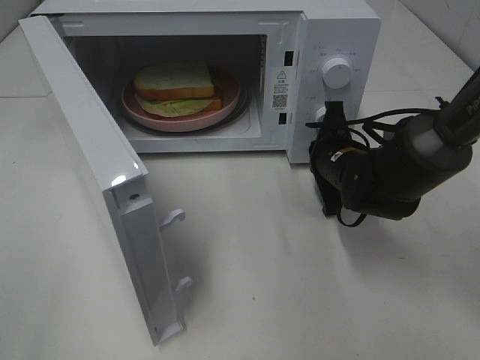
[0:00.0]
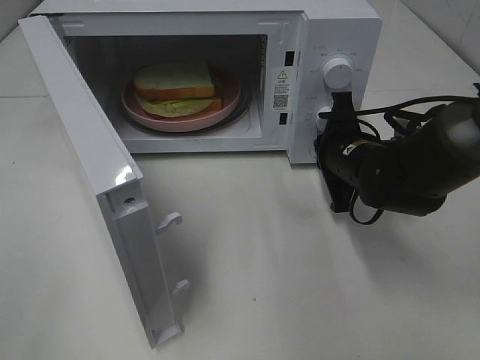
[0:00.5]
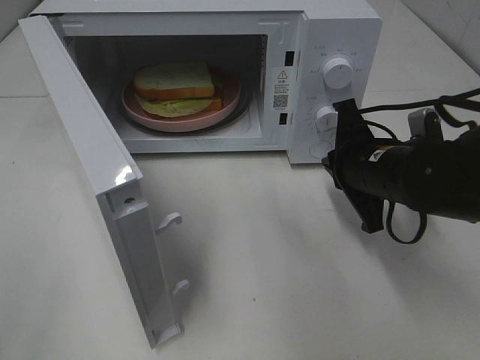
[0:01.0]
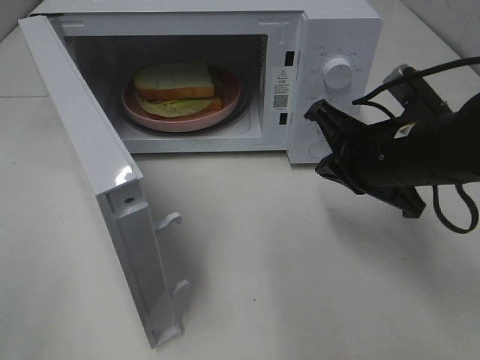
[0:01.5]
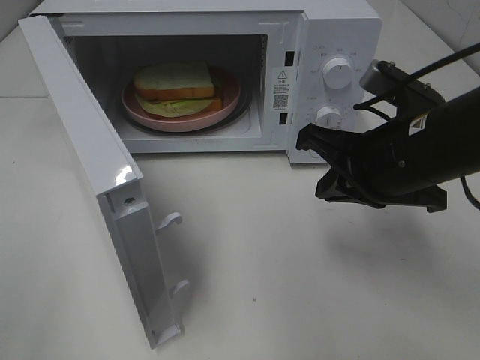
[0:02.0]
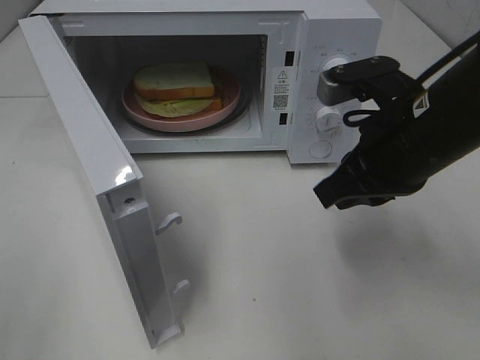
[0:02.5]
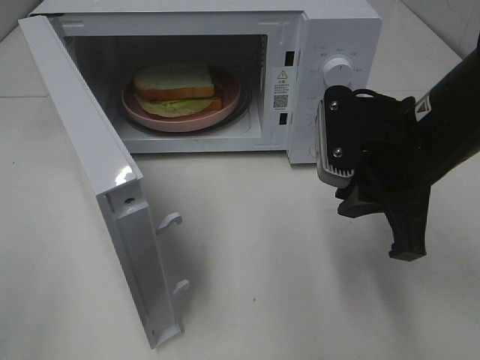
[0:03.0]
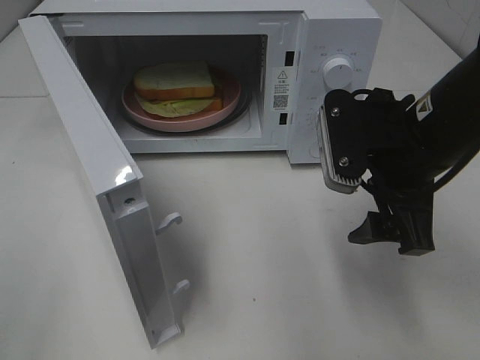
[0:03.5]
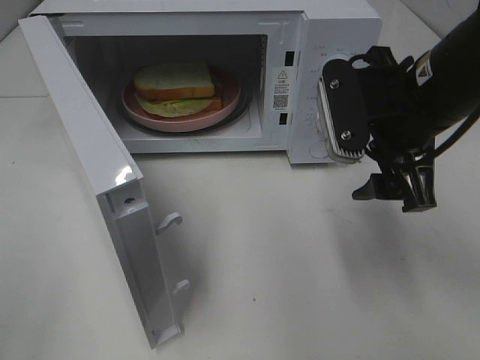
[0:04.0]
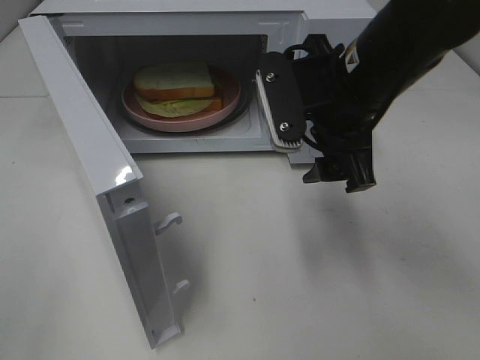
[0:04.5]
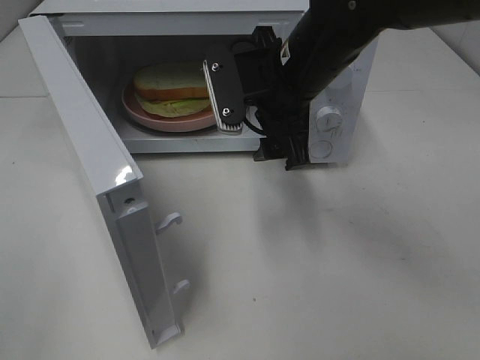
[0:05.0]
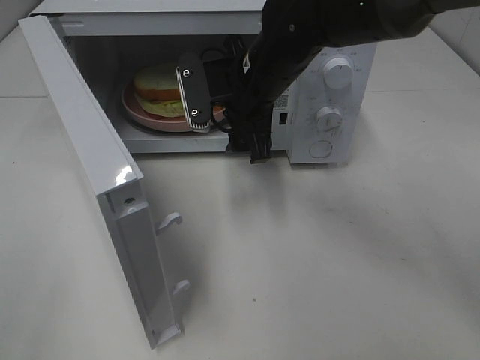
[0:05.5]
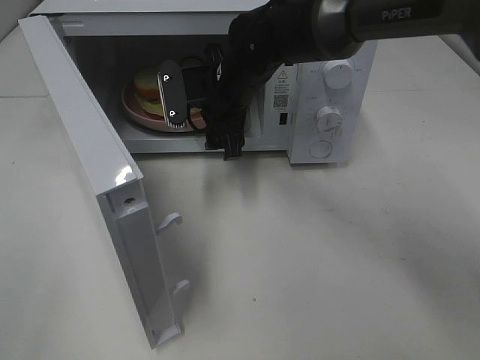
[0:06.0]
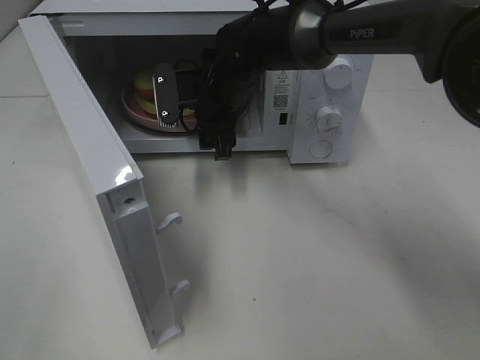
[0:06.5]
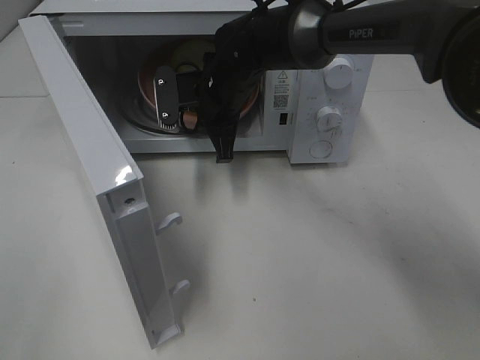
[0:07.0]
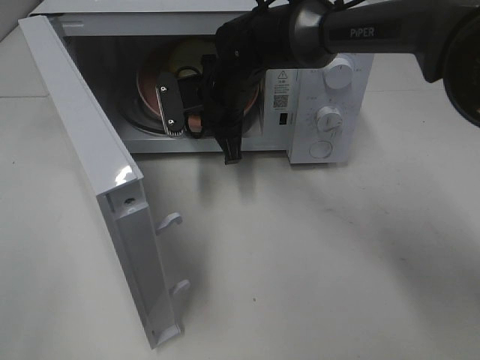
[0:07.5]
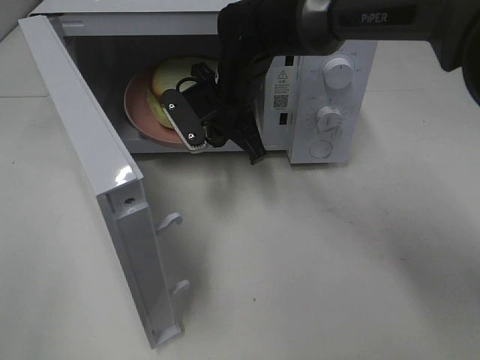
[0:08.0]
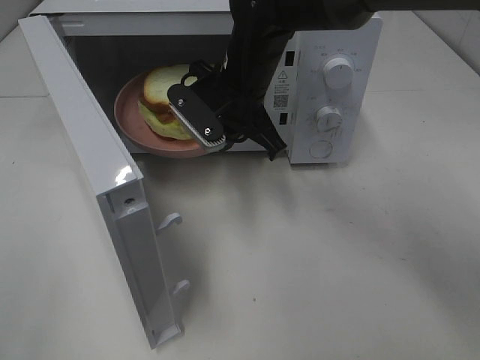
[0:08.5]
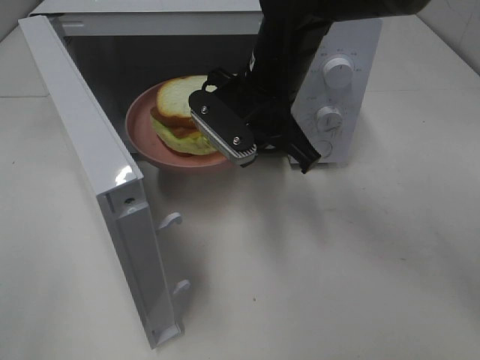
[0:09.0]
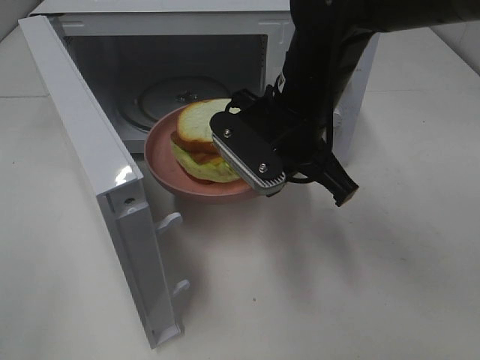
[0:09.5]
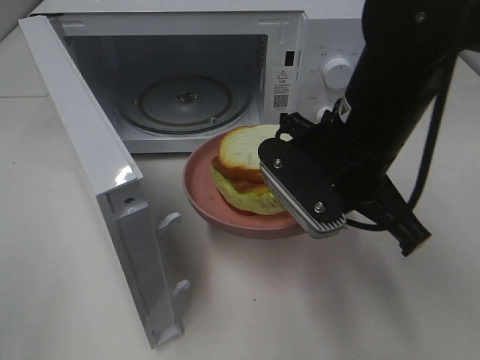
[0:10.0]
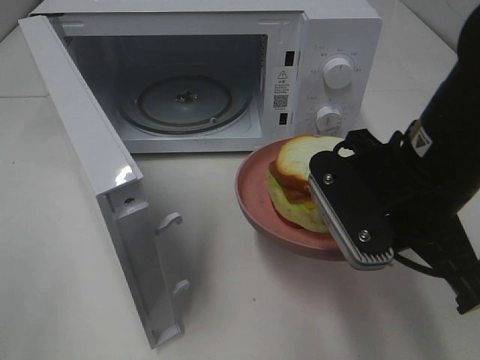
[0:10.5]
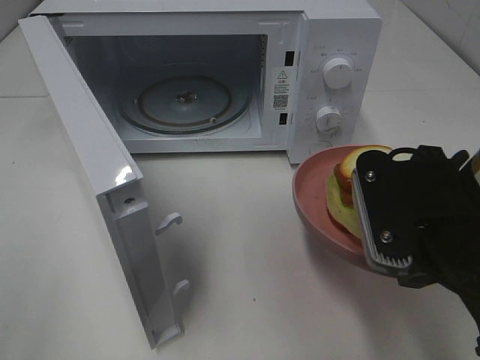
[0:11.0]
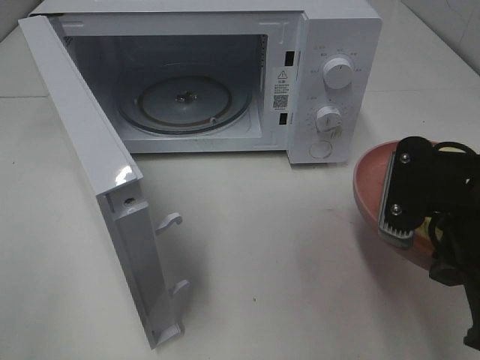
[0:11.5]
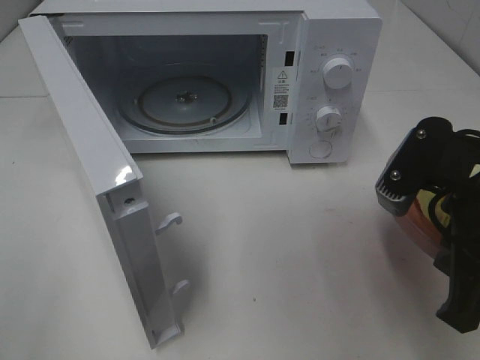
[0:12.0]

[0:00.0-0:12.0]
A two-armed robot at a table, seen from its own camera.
Task of the whole recording: Heat Sandwich.
Step, 0:01.0 to 0:07.0: Right hand: grab the plate with the sandwich.
0:00.0 to 0:02.0: The right gripper heads upward and backward, covering approximately 15 cm.
0:02.0 to 0:04.0: The right gripper opens.
0:04.0 to 0:06.0: The right gripper heads to the left, forward and downward, covering approximately 25 cm.
0:06.0 to 0:08.0: The right gripper closes its fingers.
0:08.0 to 0:10.0: The right gripper is displaced backward and to the right by approximately 20 cm.
0:10.0 to 0:12.0: The right gripper travels to the right and backward by about 10 cm.

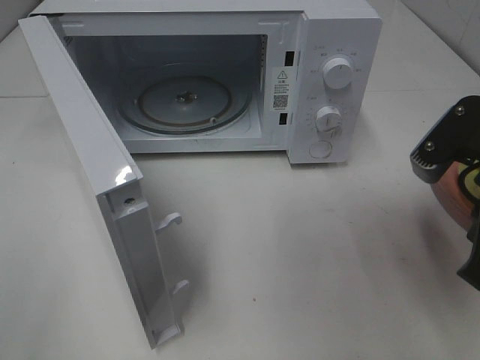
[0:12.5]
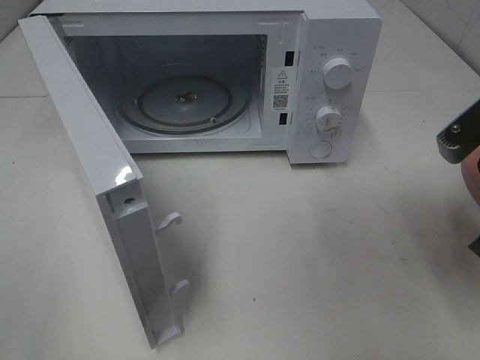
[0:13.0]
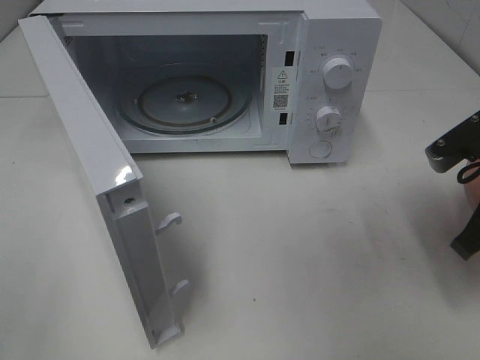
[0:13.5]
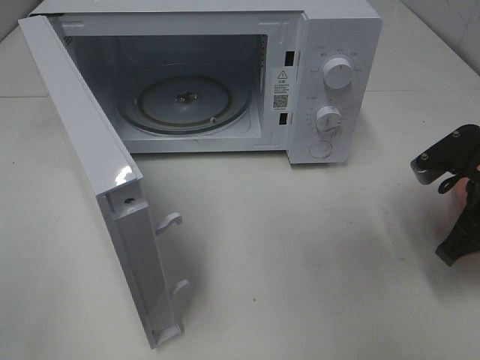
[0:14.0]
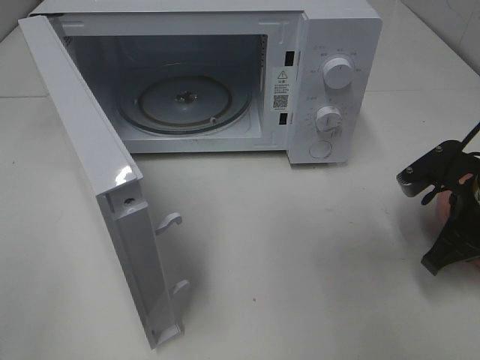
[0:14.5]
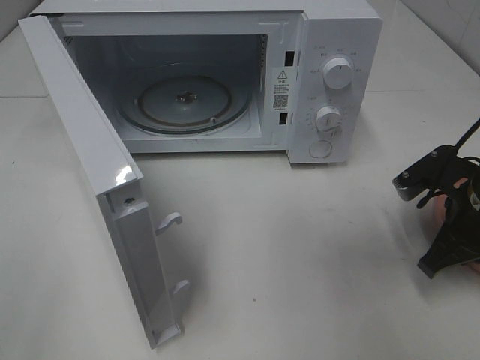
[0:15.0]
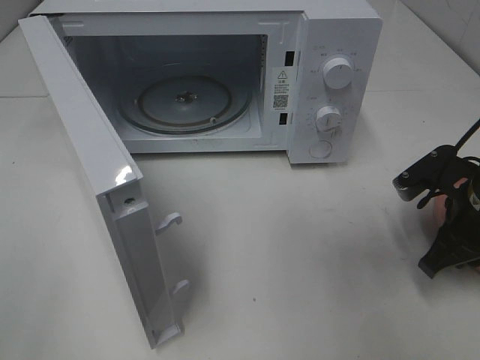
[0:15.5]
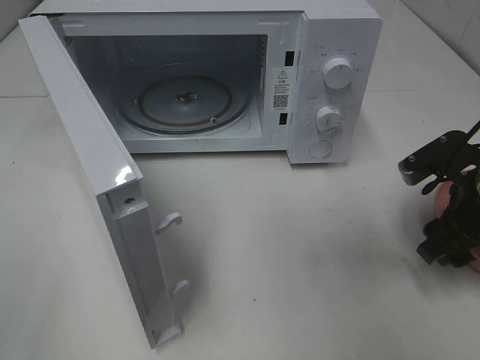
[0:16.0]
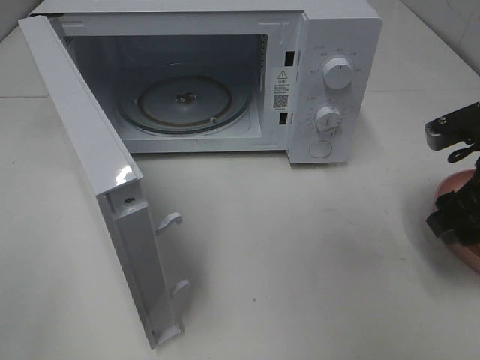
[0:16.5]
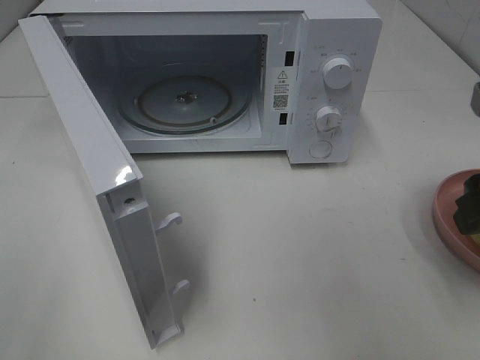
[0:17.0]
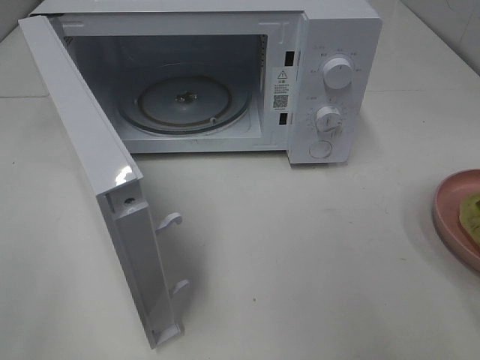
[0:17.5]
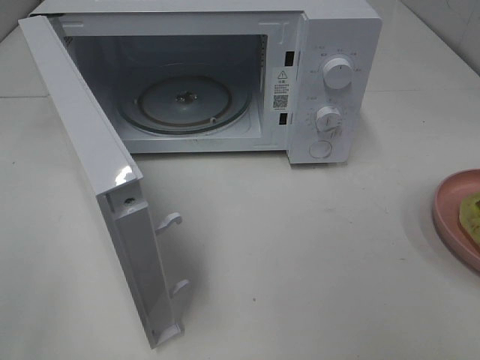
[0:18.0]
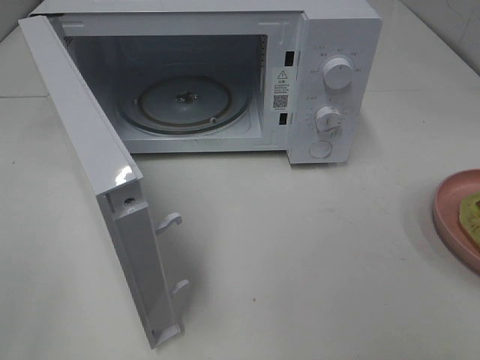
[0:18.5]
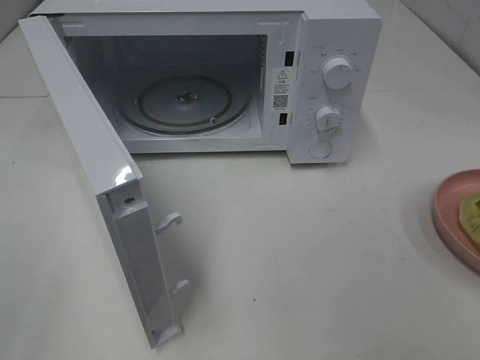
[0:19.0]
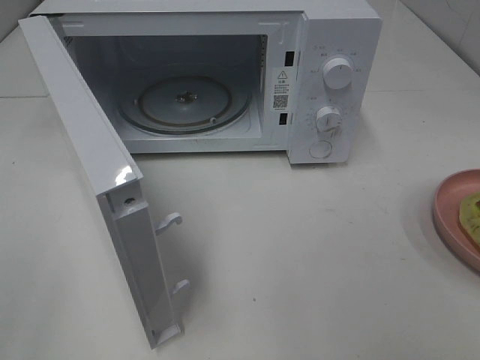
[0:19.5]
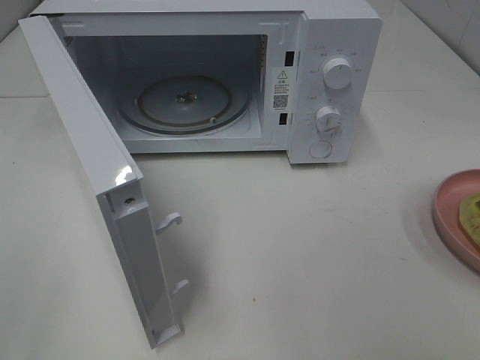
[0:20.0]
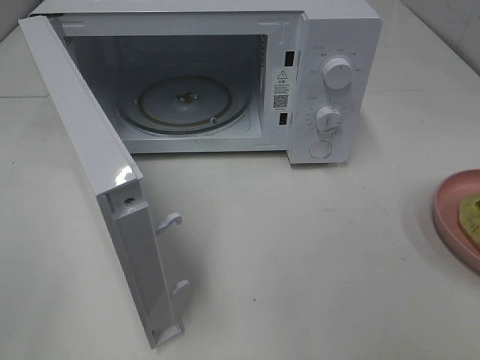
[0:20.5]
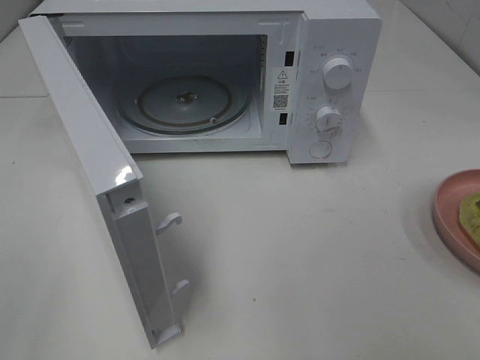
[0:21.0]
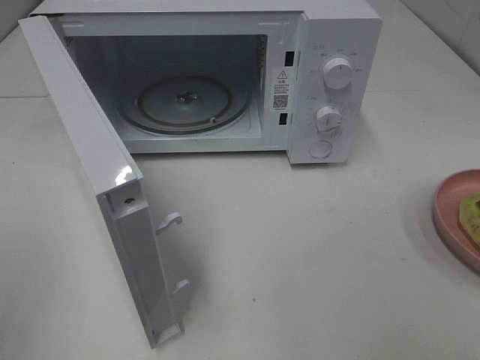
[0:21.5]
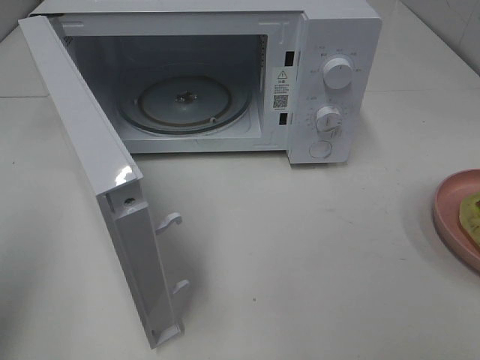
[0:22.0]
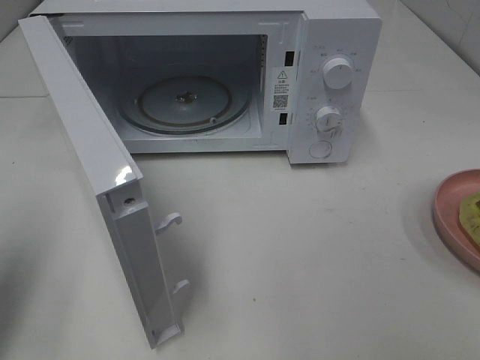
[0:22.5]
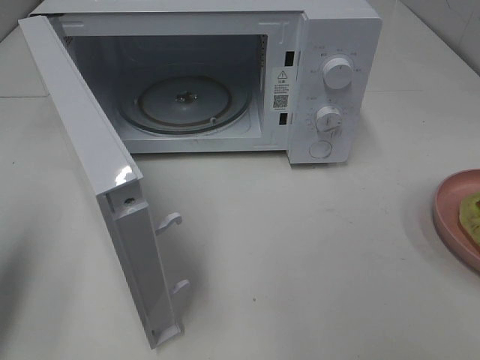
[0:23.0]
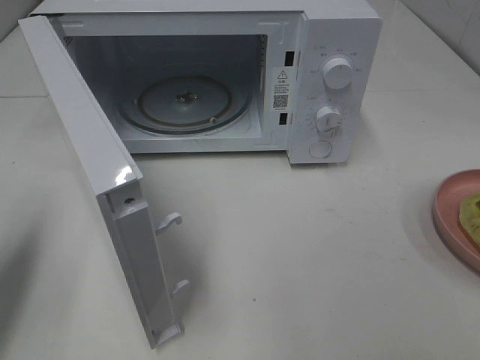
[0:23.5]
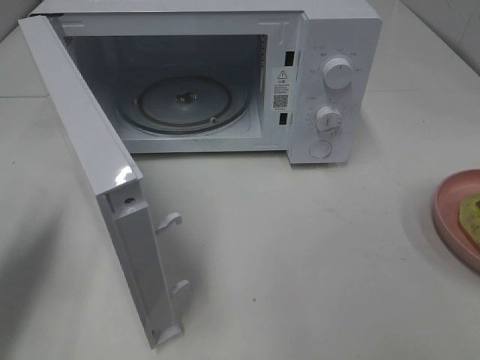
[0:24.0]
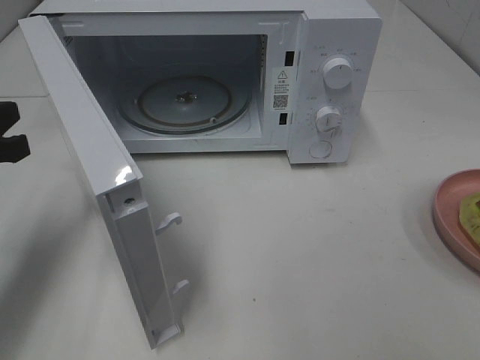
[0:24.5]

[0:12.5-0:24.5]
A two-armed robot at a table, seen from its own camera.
Task of the whole recording: Heat Sandwich.
Step, 0:12.5 to 0:16.5: Right hand: place the plate on the table.
0:12.5 to 0:14.5: The right gripper shifts some 10 cm downward and forward.
0:14.5 to 0:16.5: The right gripper travels upward by approximately 5 cm, and opens up.
0:16.5 to 0:18.5: The right gripper is displaced backward and upward by approximately 25 cm.
0:20.5 to 0:22.5: The left gripper goes some 15 cm forward, and closes its fingers.
0:22.5 to 0:24.5: The left gripper shifts roughly 10 cm forward and downward.

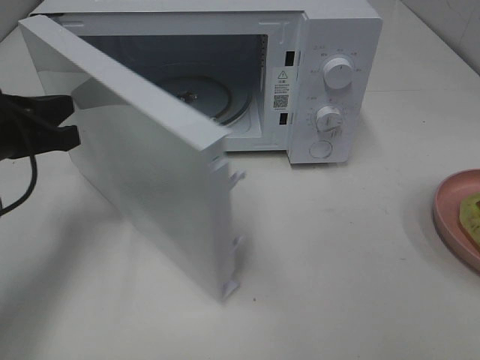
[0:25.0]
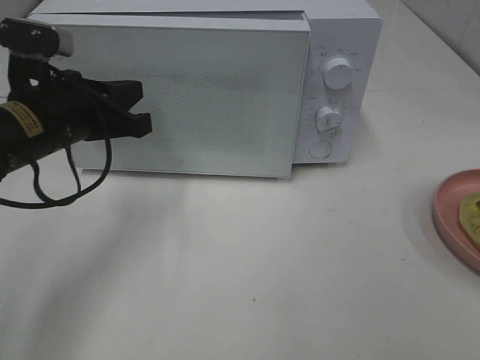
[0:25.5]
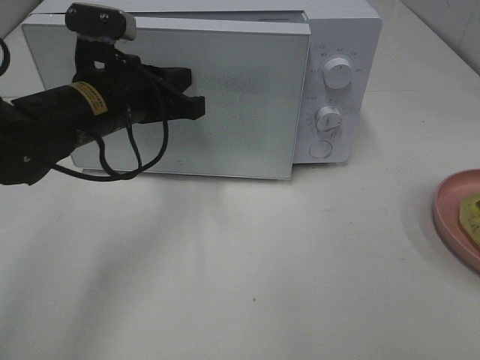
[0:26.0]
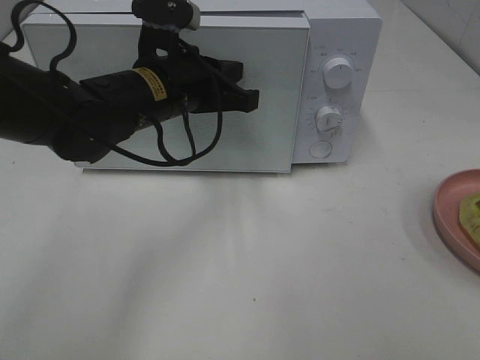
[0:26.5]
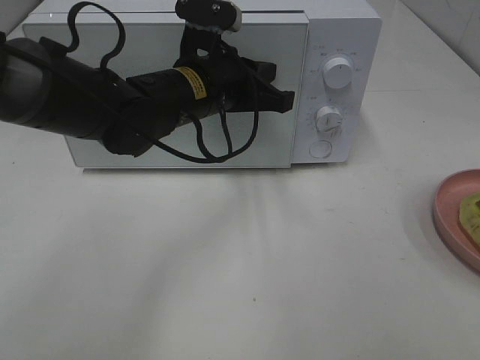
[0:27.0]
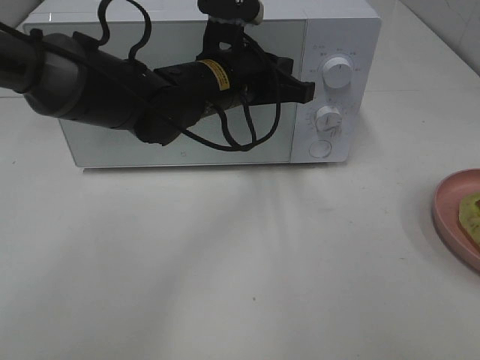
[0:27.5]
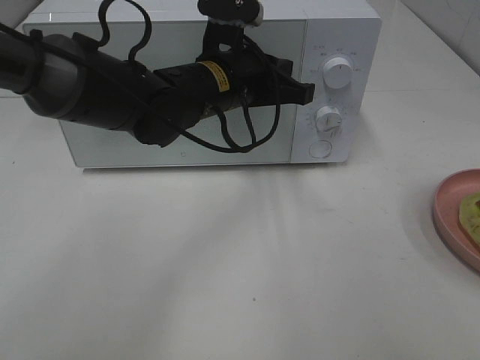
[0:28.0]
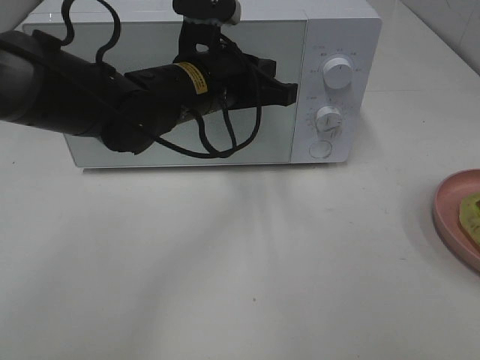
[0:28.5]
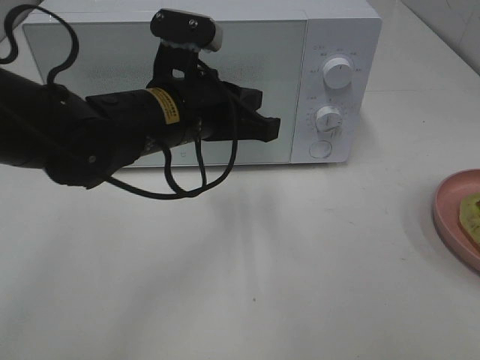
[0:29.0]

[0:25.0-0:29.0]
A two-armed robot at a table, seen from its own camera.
Task of the whole recording: Heat Sandwich.
Step, 0:25.0 to 0:28.5: Left hand: close the microwave door.
0:25.0 to 0:27.0: The left gripper heads to the right, covering approximately 20 cm.
0:27.0 to 0:29.0: The left gripper travels backward by about 5 cm.
